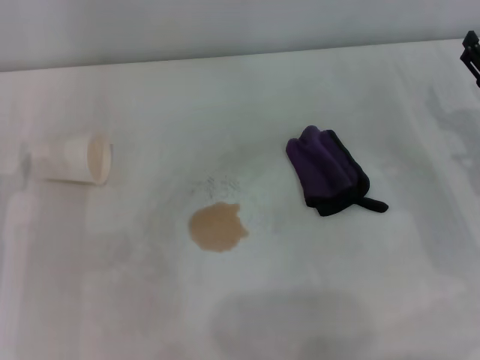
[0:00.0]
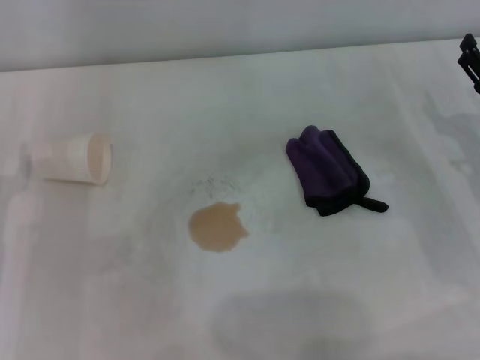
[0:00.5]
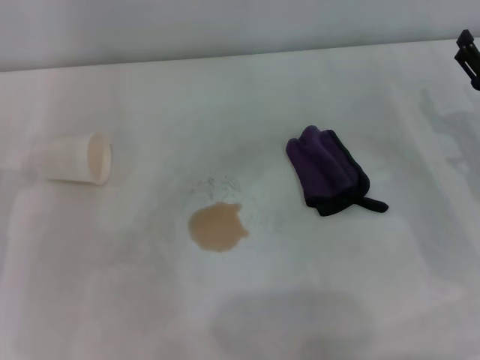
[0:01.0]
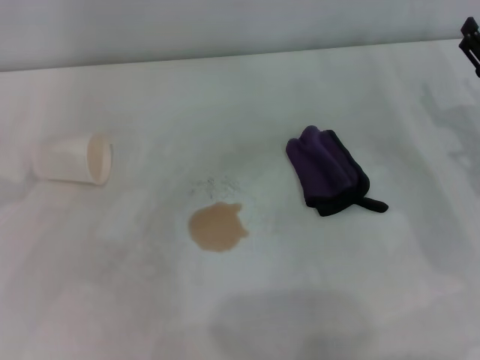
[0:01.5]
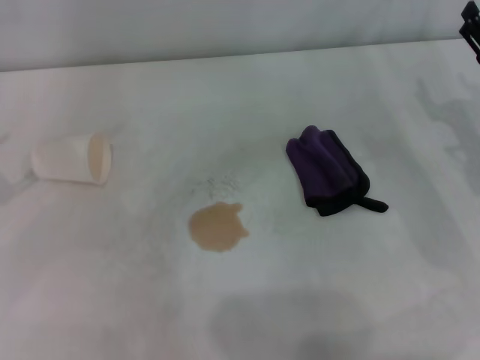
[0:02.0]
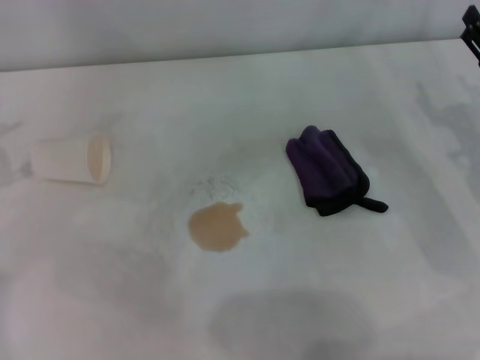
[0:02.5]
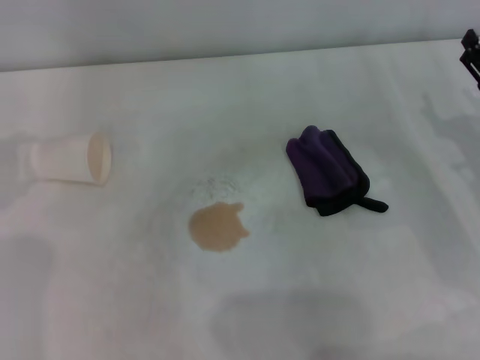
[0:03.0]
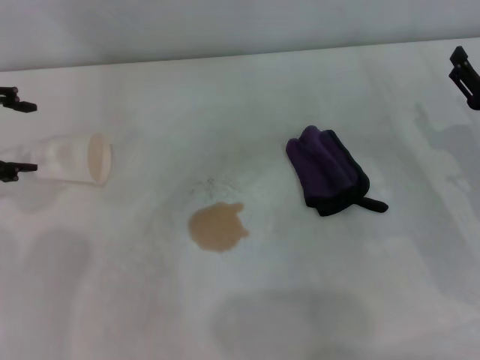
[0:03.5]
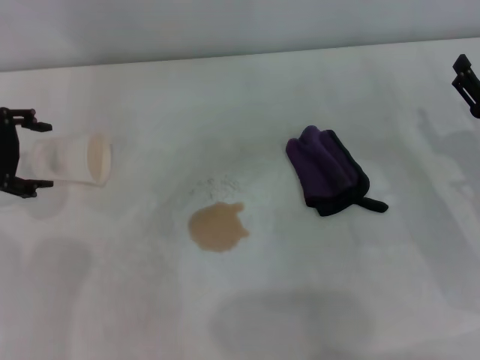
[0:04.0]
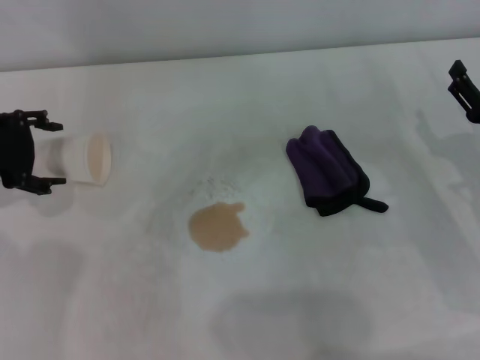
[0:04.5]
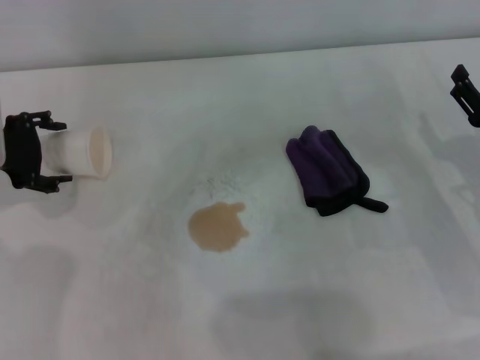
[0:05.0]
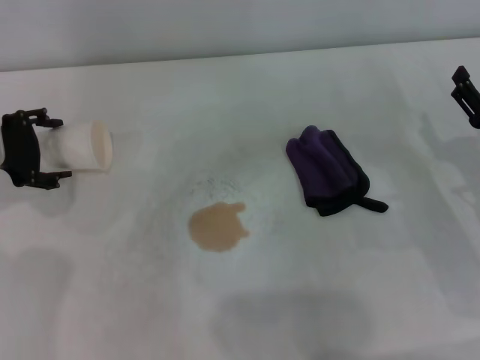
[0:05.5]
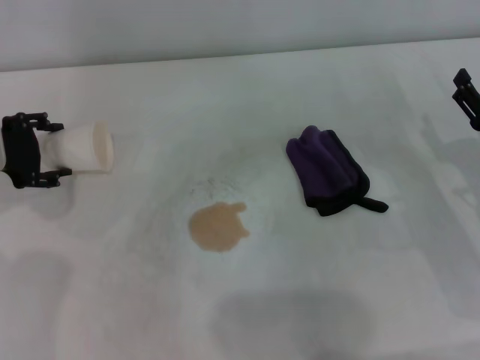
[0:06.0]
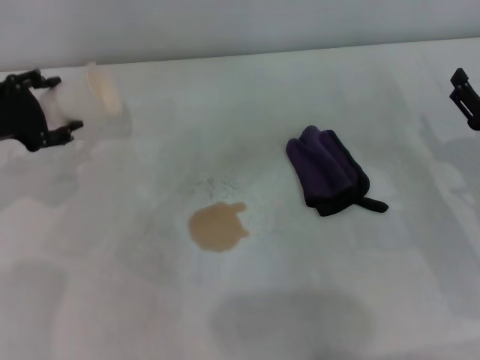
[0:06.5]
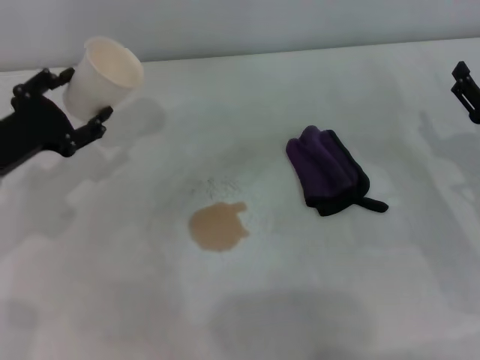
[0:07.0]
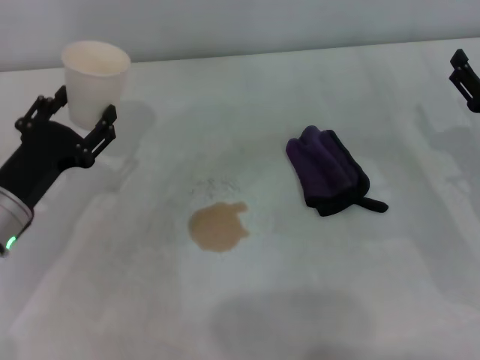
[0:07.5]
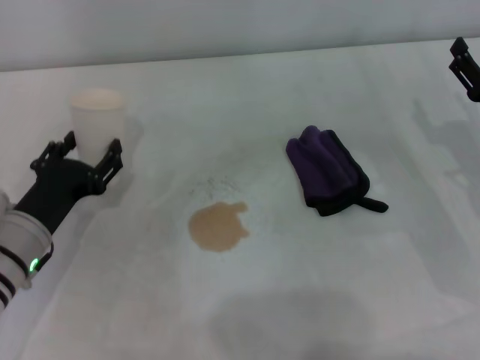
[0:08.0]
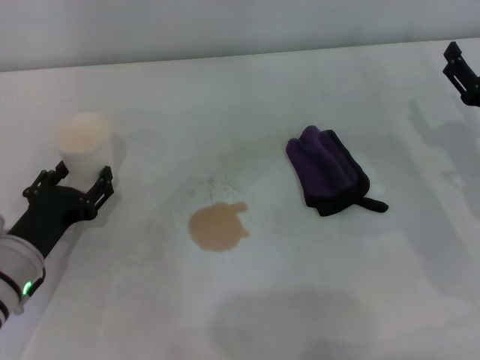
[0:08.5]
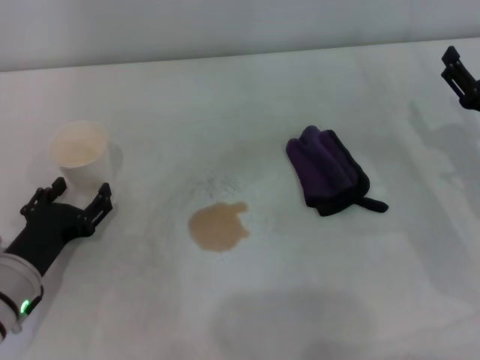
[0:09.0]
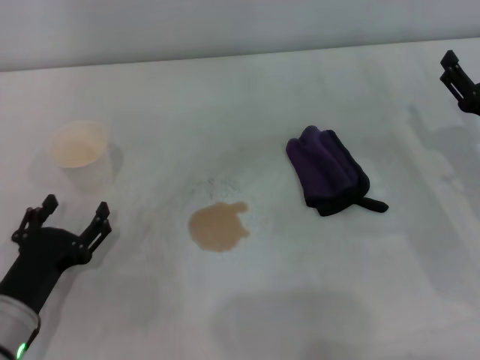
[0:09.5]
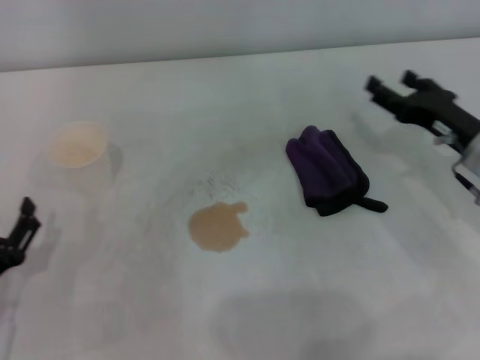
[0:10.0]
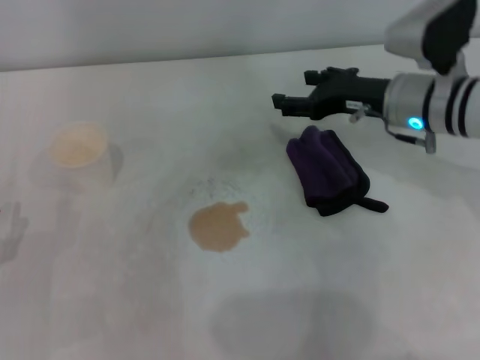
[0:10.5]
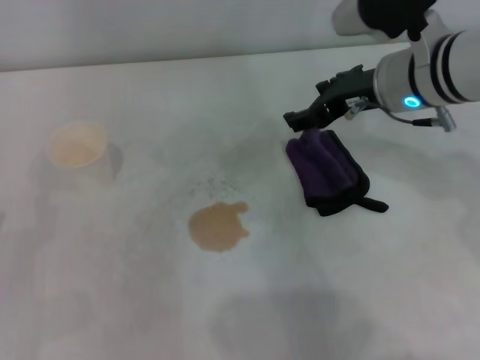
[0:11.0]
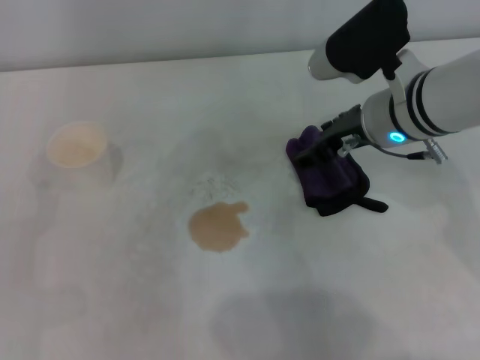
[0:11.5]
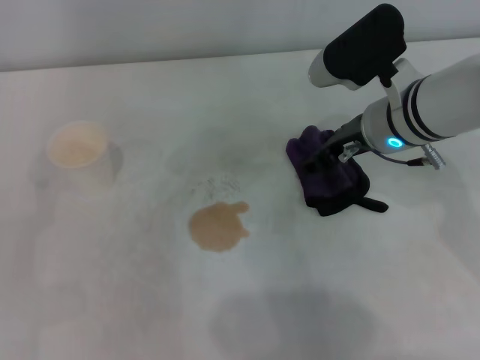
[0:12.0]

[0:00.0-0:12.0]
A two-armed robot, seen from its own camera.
Step, 0:00.0 to 0:06.0: Grasp the paper cup with the left gripper.
Step, 0:06.5 to 0:08.5: Stand the paper cup upright with the left gripper.
0:02.0 to 0:04.0: The left gripper travels forward and to the right by about 15 cm. The right gripper shifts by some 5 cm.
0:04.0 to 0:06.0: The left gripper goes some 5 cm downward, and closes.
0:06.0 to 0:08.0: The left gripper goes approximately 15 cm backward, downward and to the right.
0:08.0 to 0:10.0: The left gripper heads backward, covering some 10 cm, and opens.
0:10.0 to 0:12.0: The left gripper moves roughly 5 cm. The right gripper shifts some 15 cm to the left and upward.

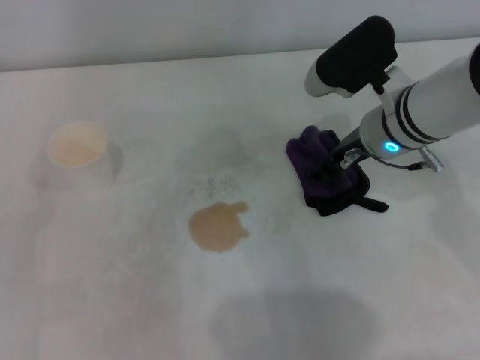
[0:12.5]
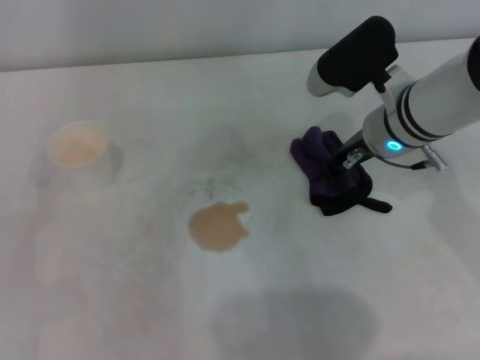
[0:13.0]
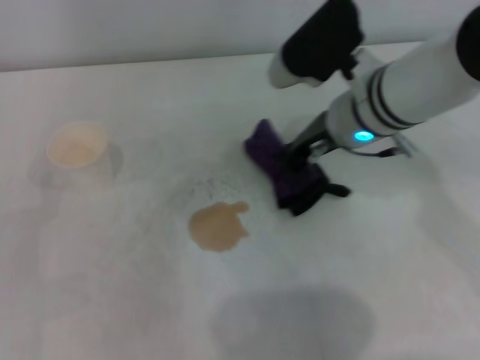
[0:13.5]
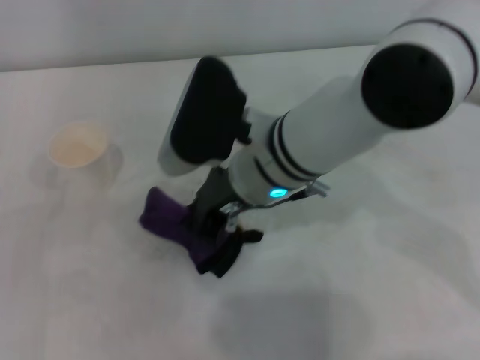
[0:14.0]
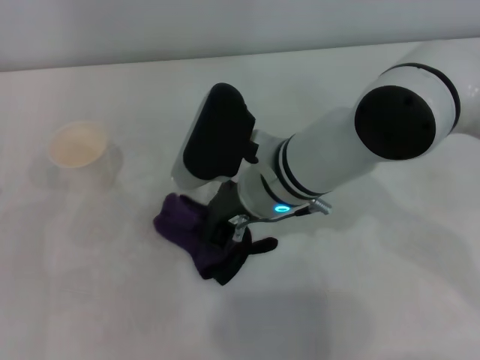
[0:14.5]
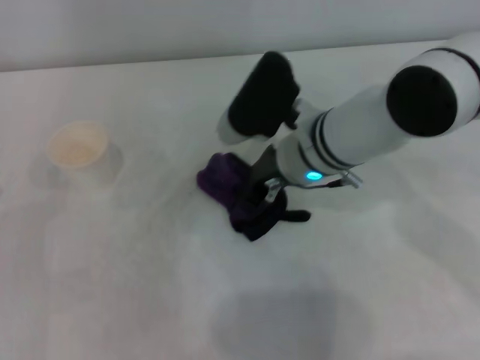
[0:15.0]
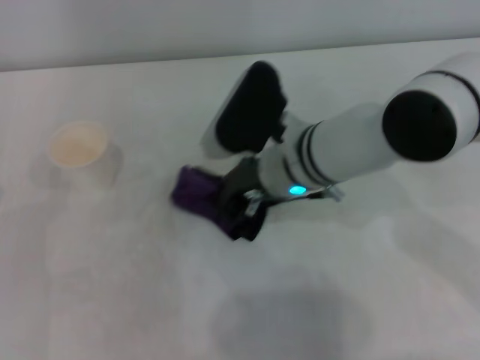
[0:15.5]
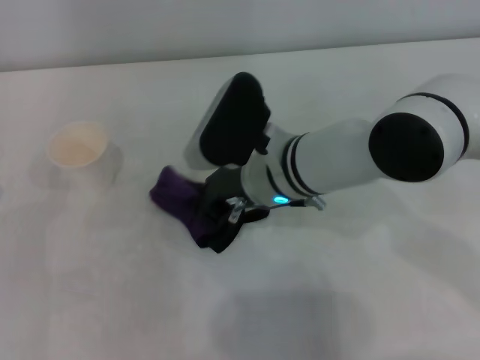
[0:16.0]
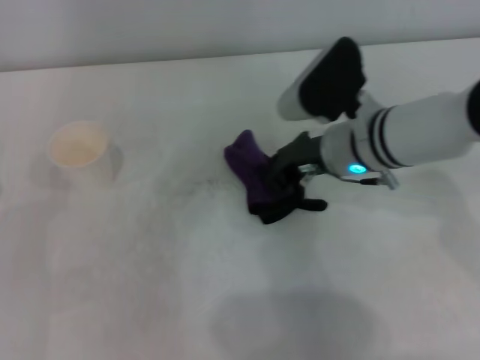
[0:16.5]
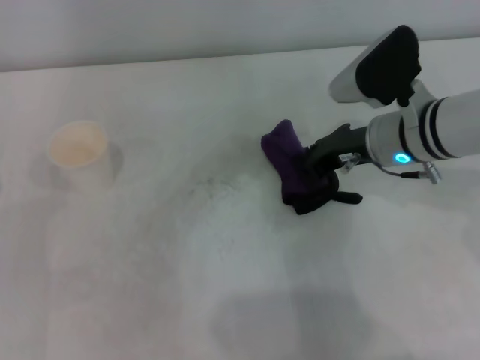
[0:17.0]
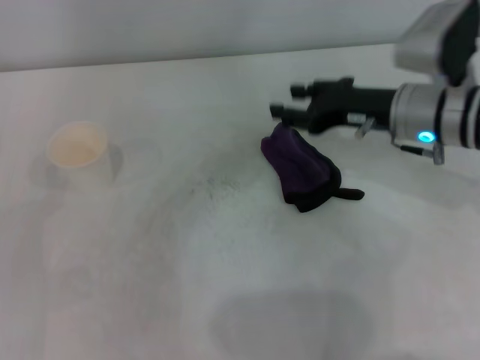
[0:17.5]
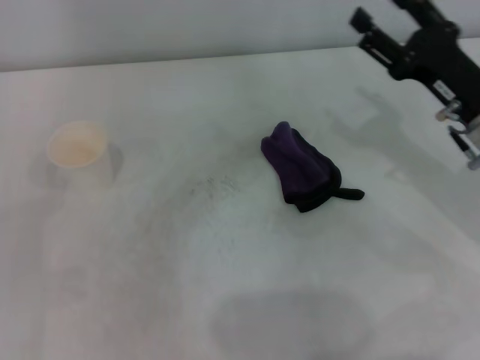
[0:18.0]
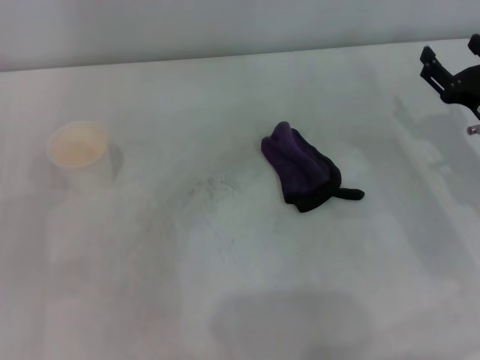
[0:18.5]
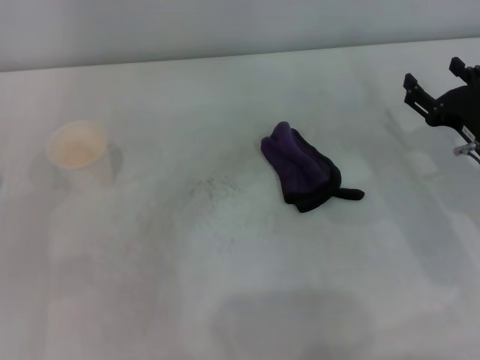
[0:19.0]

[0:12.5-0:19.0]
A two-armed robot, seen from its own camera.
Step, 0:13.5 to 0:16.5: Wipe the stains off the table with the right gripper.
0:12.5 to 0:14.5: The right gripper is displaced to the left by approximately 10 cm, and closes its fingers.
0:14.5 to 0:17.0: The right gripper shifts roughly 15 cm to the right.
0:17.0 to 0:19.0: The right gripper is displaced to the right, downward and backward by about 15 cm, and opens up.

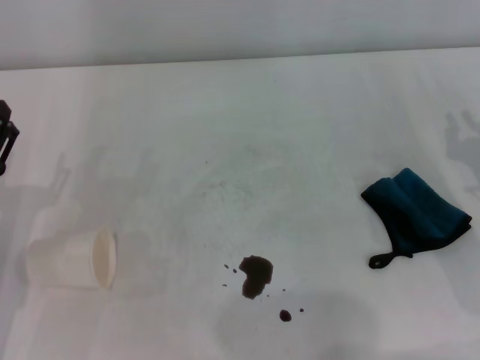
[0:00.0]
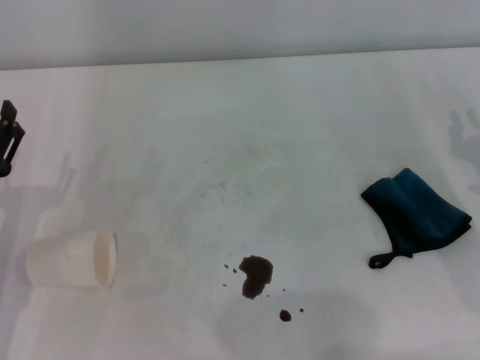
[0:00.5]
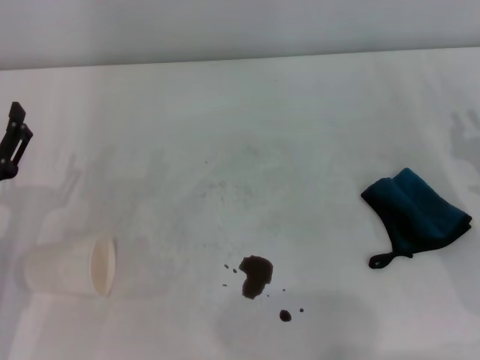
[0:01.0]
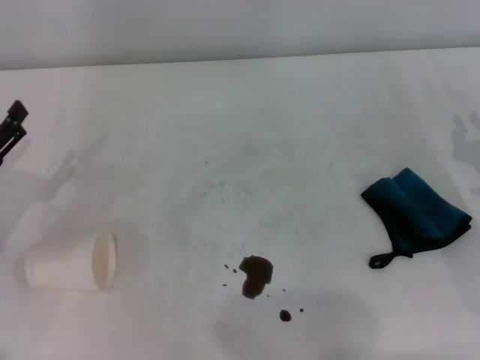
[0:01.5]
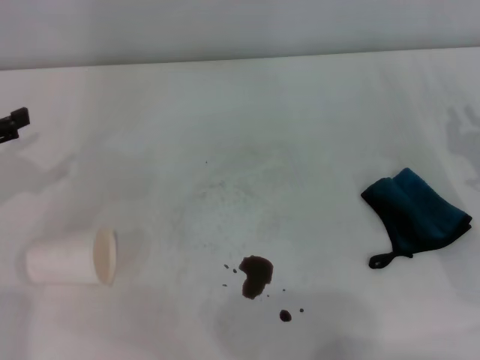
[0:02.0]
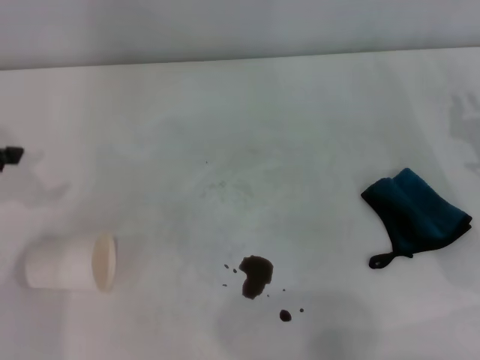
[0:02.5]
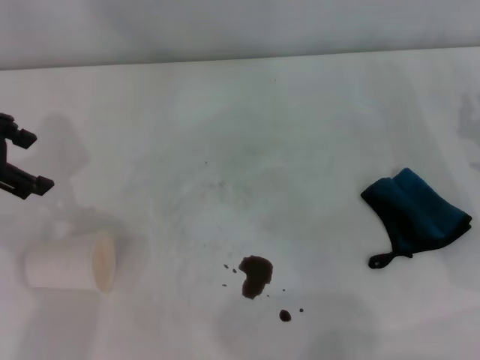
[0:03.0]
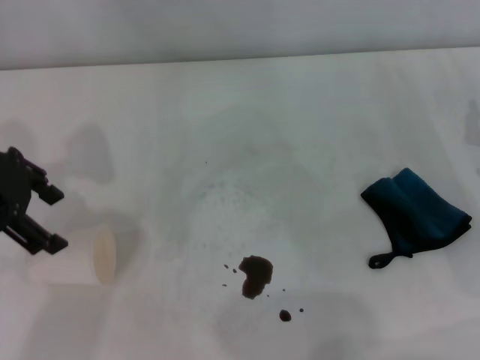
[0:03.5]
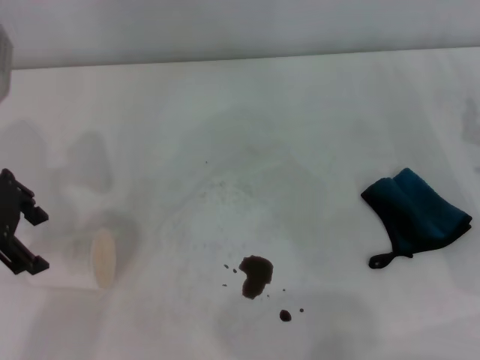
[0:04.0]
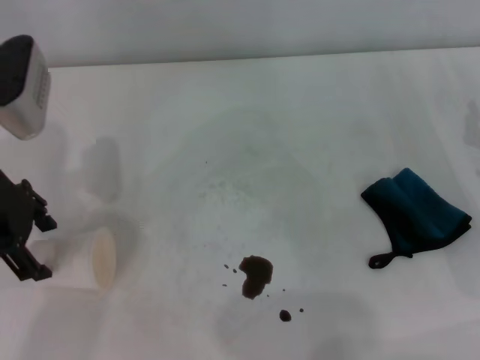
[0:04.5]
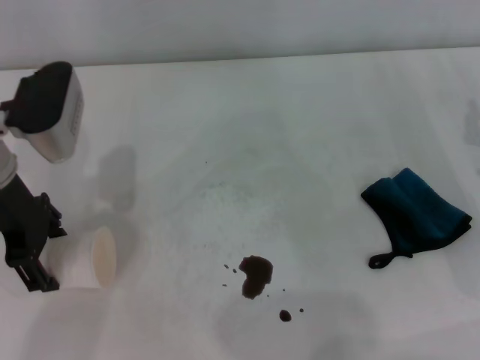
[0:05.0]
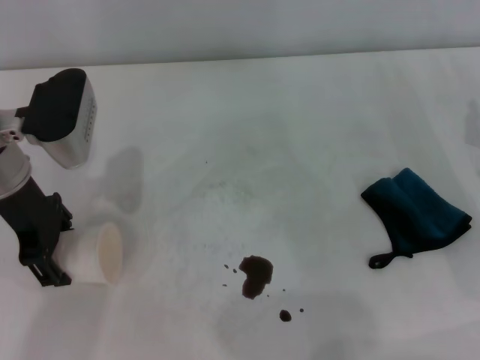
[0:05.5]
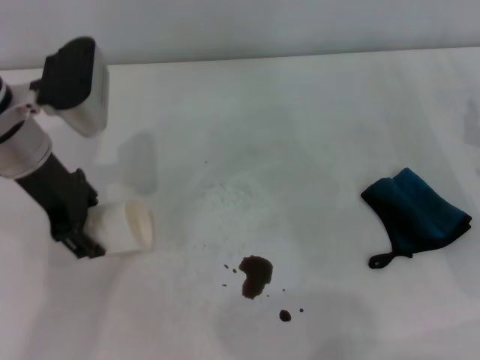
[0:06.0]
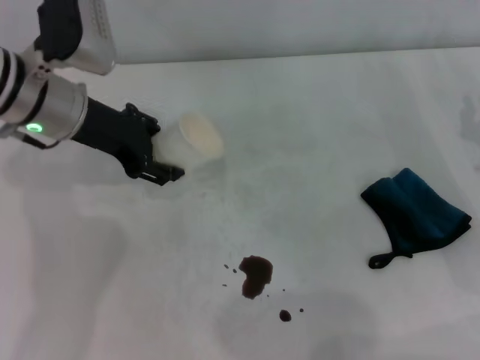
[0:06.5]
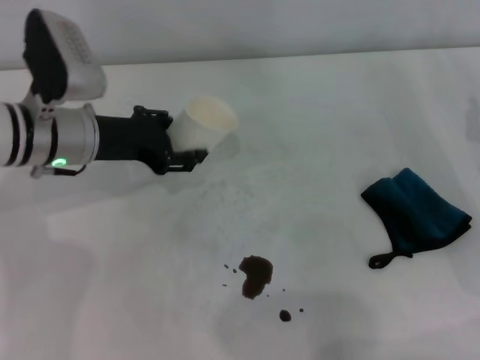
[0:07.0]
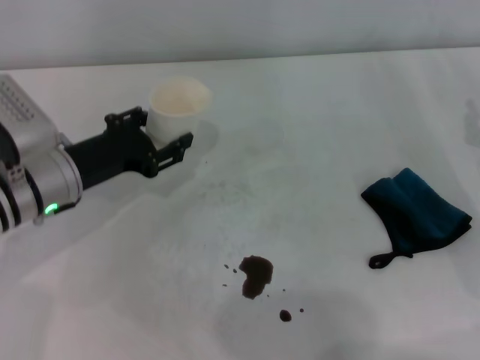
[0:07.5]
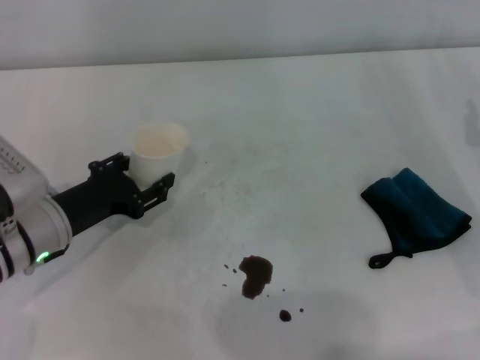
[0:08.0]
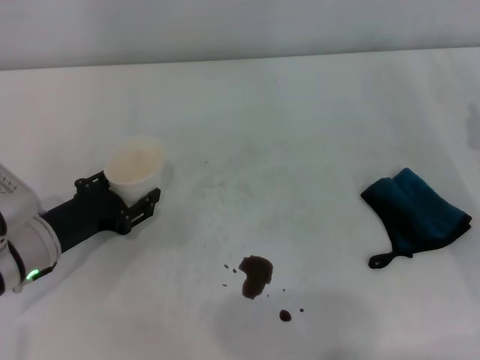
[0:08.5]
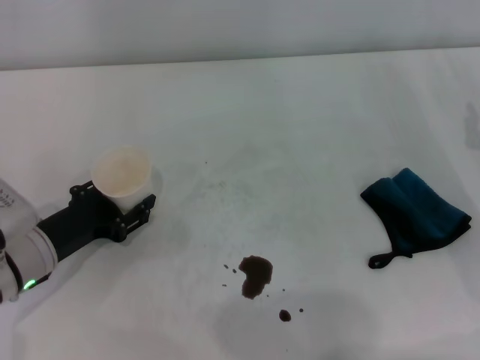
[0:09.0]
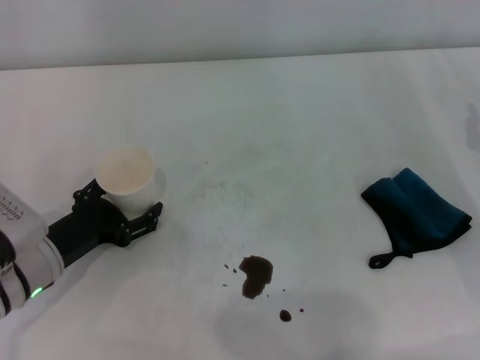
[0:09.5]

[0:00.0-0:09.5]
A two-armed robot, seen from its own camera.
Step, 0:00.0 to 0:05.5: Grasp the paper cup with the left gripper.
0:00.0 to 0:02.0: The left gripper heads upward, to the left and forward, covering about 15 cm.
0:02.0 to 0:04.0: The left gripper travels to the right and upward by approximately 15 cm.
0:04.0 to 0:05.5: The left gripper heads downward, covering about 5 cm.
0:05.5 to 0:07.5: The left gripper moves downward, roughly 10 cm, and closes.
0:07.5 to 0:09.5: The left gripper travels backward and downward by roughly 10 cm, and opens.
